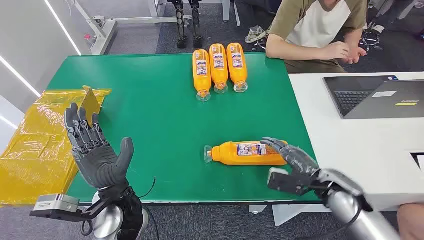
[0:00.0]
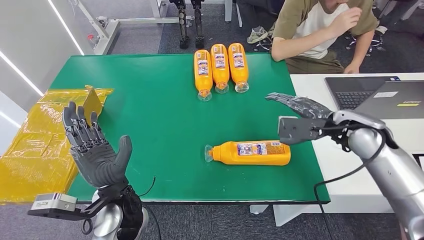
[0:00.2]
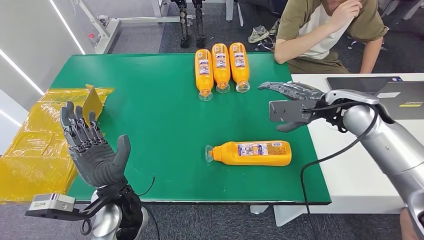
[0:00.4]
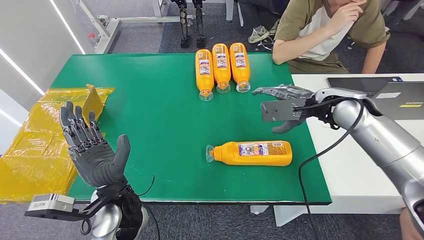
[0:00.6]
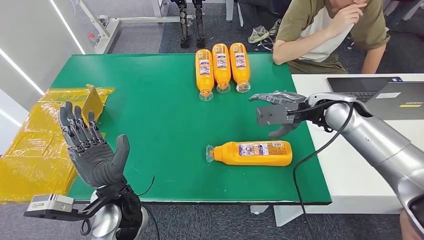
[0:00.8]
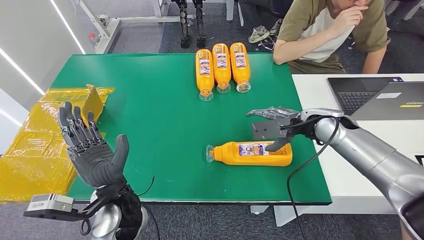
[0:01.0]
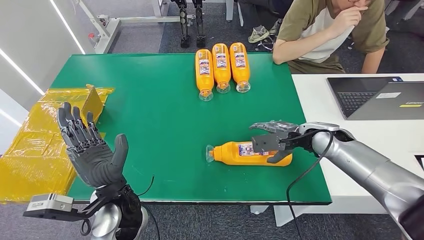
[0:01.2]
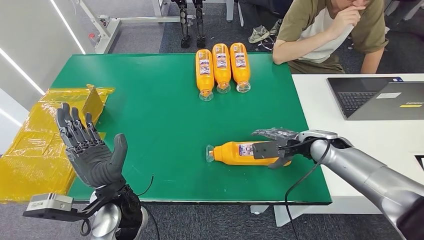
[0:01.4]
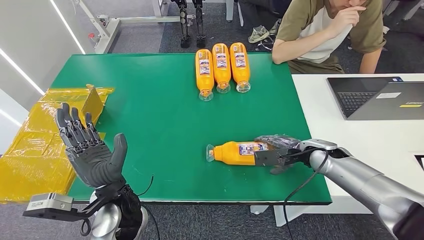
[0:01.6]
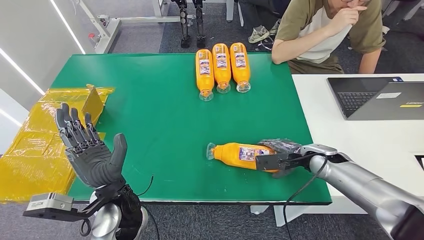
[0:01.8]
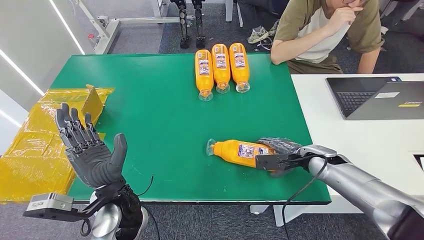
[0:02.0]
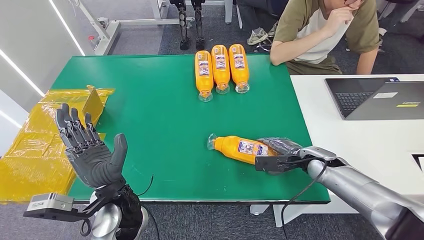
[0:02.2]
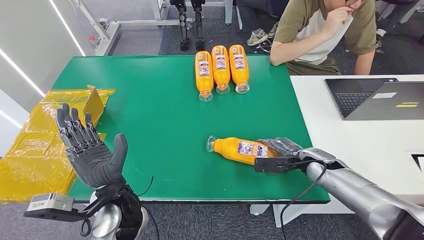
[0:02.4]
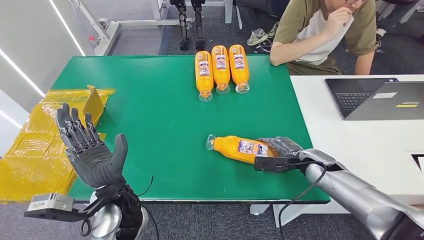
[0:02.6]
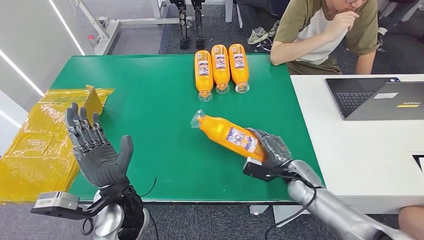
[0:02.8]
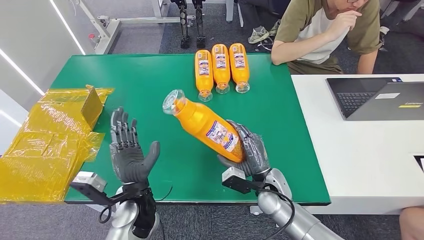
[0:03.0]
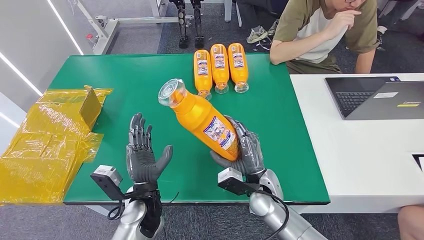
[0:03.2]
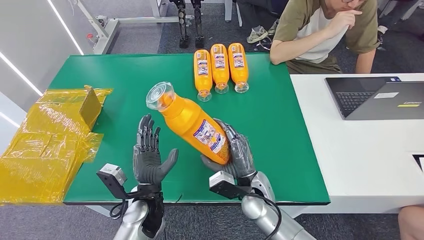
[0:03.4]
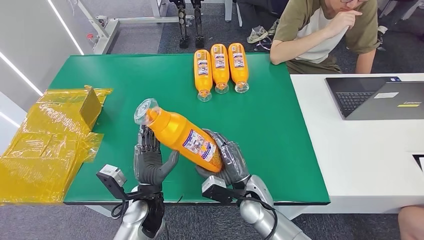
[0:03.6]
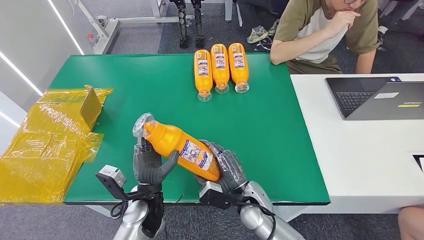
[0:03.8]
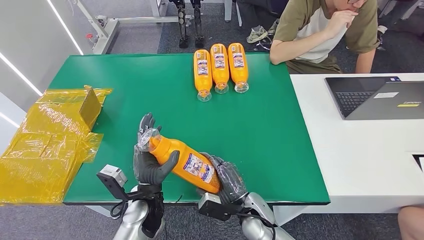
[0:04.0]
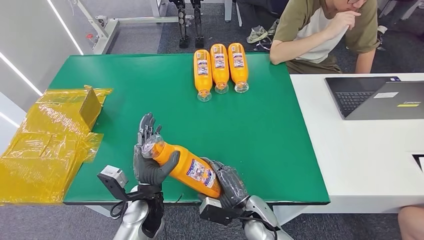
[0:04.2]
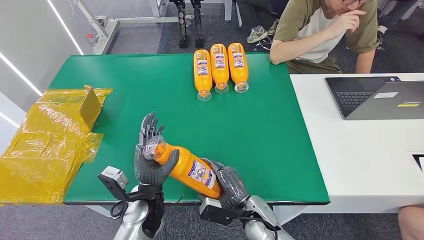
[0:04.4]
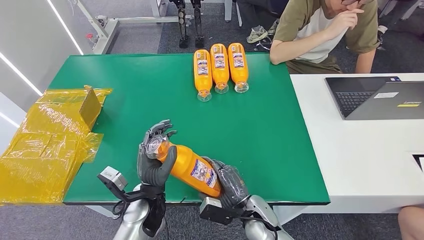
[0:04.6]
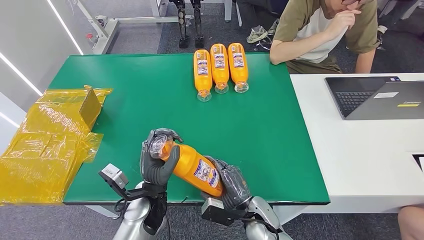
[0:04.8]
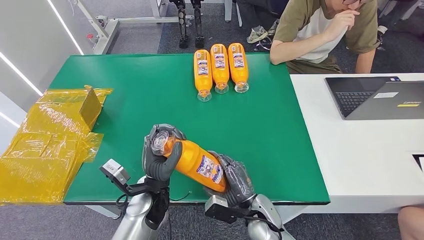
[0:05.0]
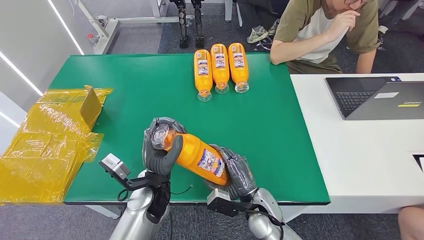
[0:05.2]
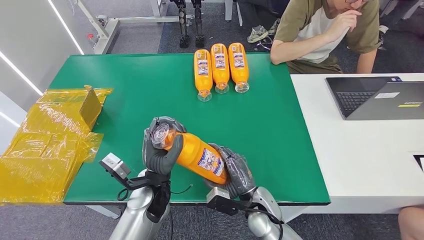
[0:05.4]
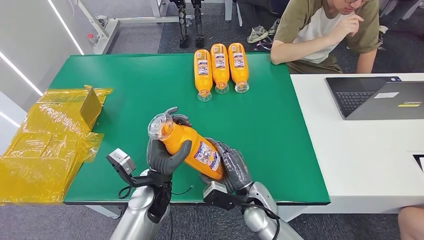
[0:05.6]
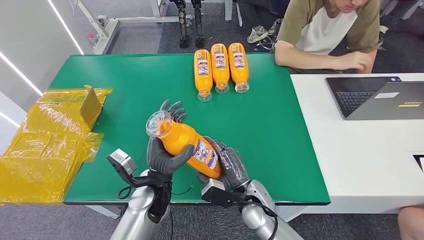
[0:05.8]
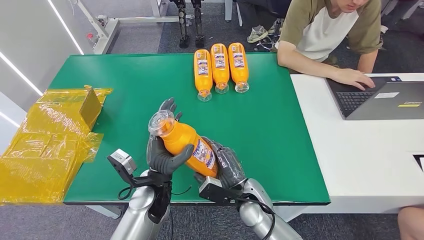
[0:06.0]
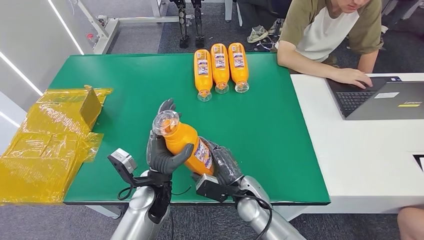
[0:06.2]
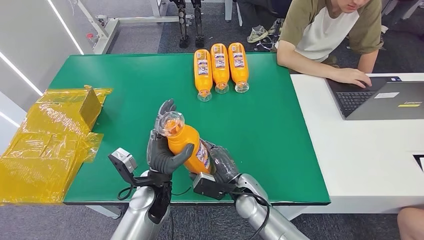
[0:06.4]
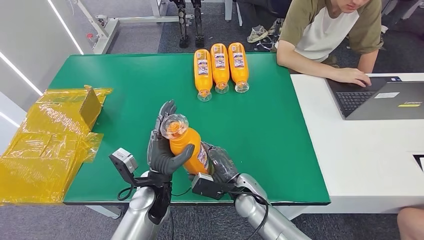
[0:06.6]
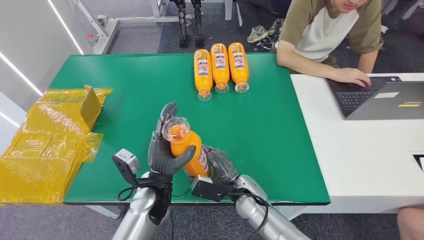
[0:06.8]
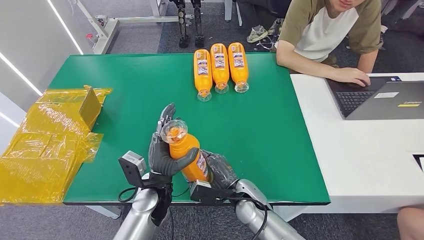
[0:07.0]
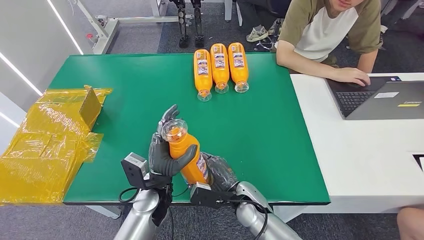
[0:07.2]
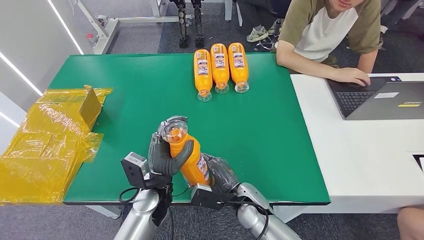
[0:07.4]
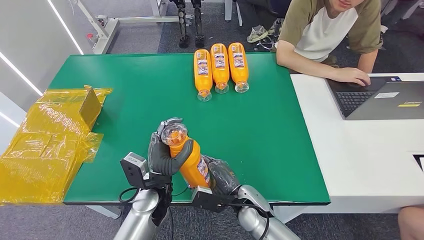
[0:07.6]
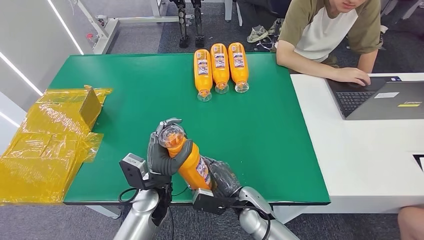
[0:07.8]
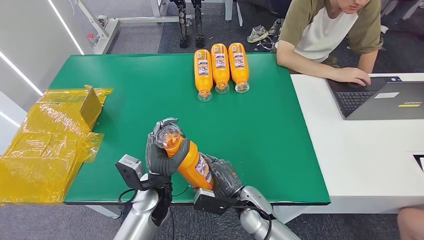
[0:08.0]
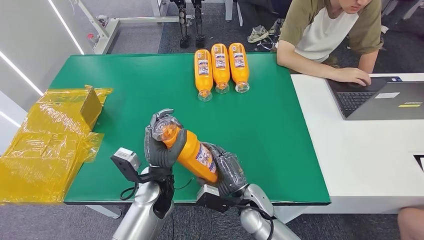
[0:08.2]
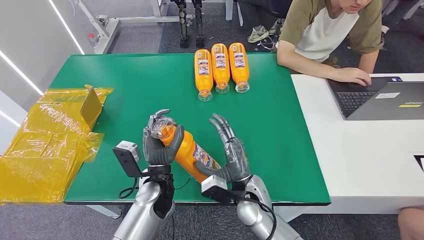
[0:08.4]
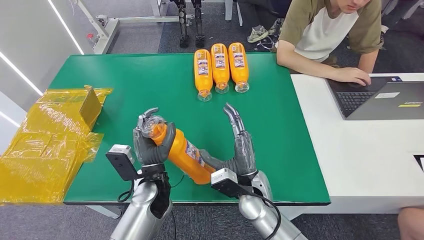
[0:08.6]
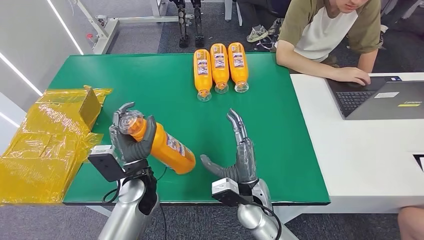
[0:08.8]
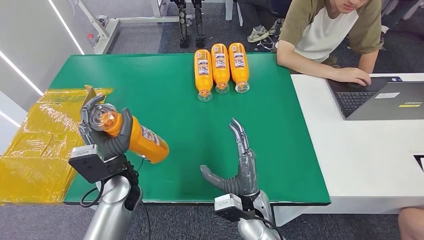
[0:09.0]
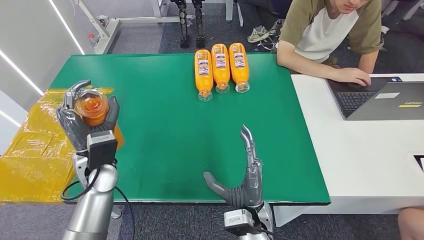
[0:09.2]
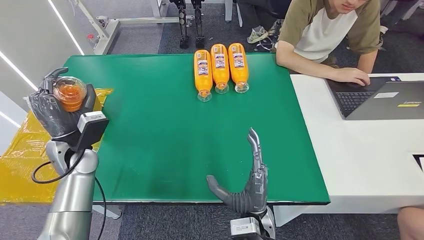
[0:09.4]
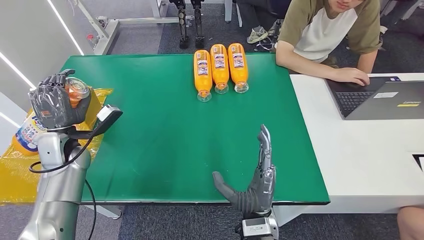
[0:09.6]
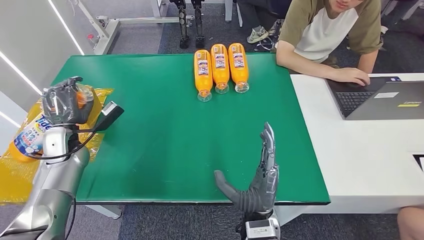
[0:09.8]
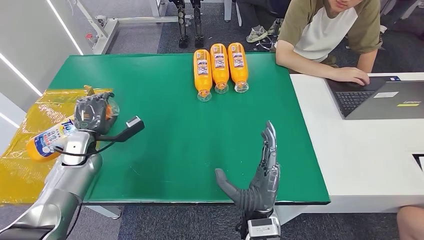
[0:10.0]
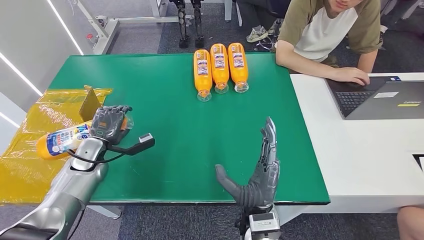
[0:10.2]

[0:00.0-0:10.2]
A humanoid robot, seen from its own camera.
Step, 0:00.0 to 0:04.0: Pick up the bottle from the table.
0:04.4 to 0:05.8: The right hand ends up about 5 cm from where it was.
0:05.8 to 0:07.2: The hands stay close to where they were, moving slightly.
0:07.2 to 0:08.8: The right hand moves upward, some 5 cm, while the left hand ends up about 5 cm from where it was.
0:08.8 to 0:10.2: The left hand travels to the left by approximately 20 cm. The right hand shifts approximately 5 cm backward.

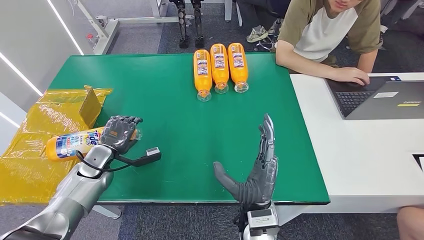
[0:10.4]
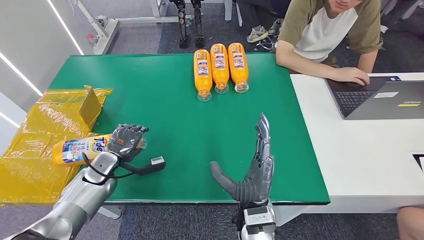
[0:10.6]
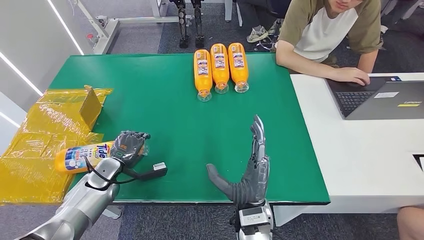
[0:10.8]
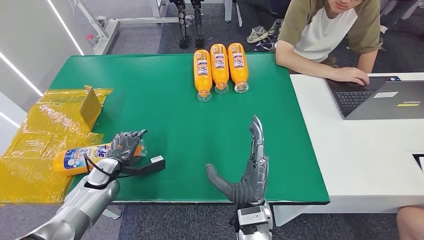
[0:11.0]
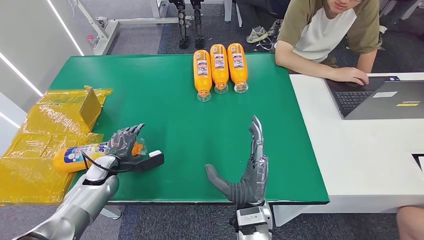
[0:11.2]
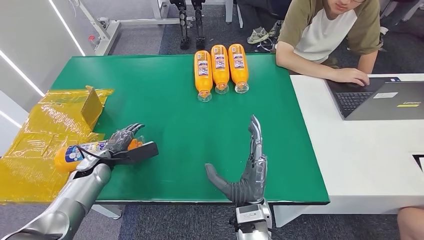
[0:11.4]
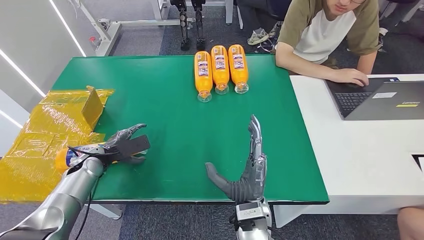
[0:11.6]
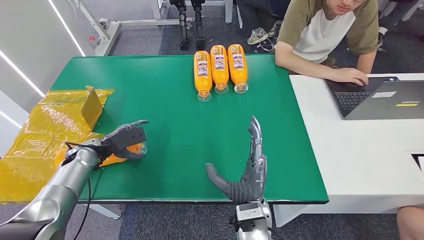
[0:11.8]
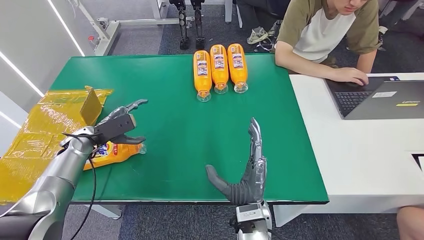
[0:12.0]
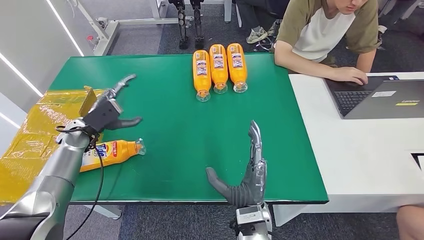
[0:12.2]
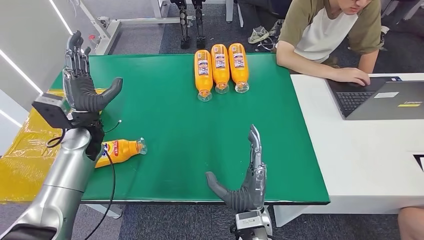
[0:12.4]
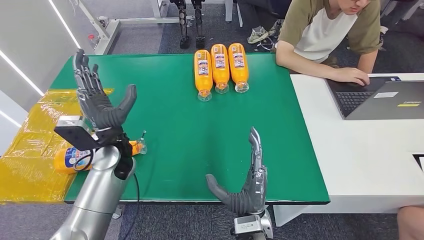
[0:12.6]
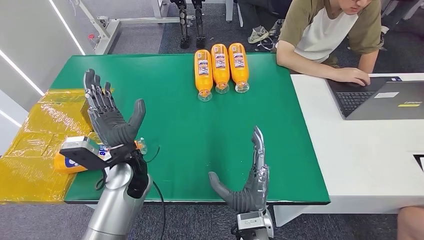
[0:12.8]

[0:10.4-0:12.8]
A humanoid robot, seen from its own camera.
Step, 0:10.4 to 0:12.8: Turn the bottle to the front side.
0:11.6 to 0:12.8: The left hand moves to the right and upward, some 20 cm.
